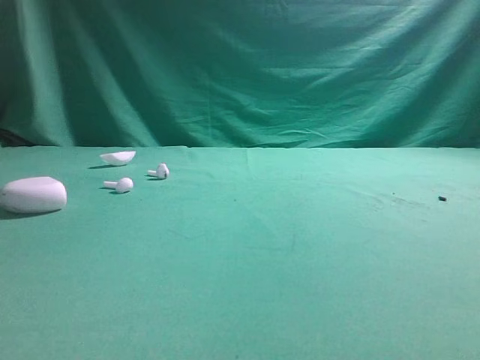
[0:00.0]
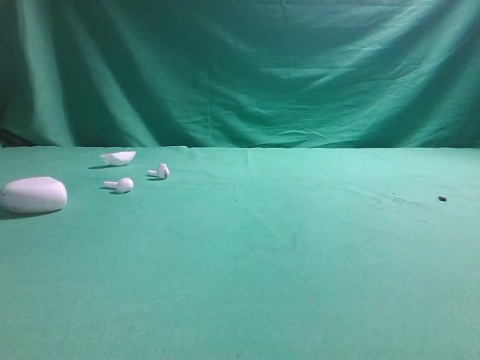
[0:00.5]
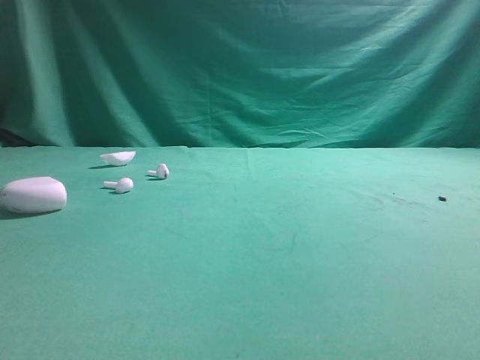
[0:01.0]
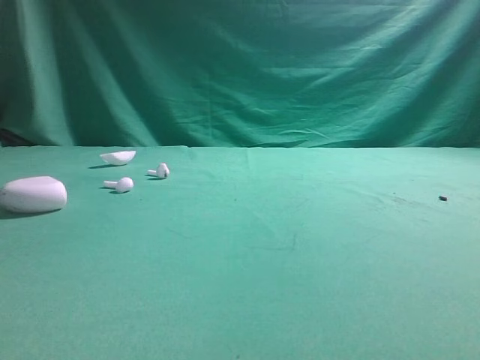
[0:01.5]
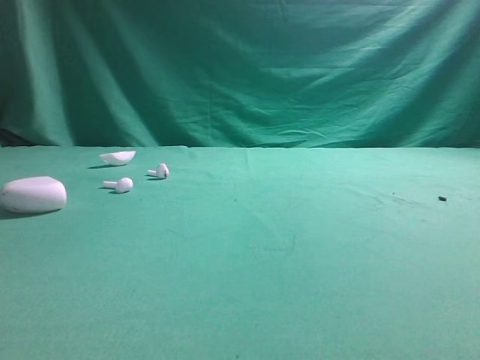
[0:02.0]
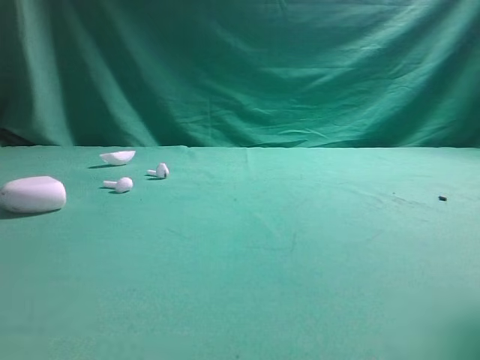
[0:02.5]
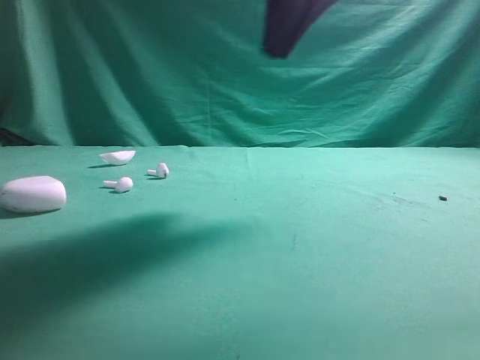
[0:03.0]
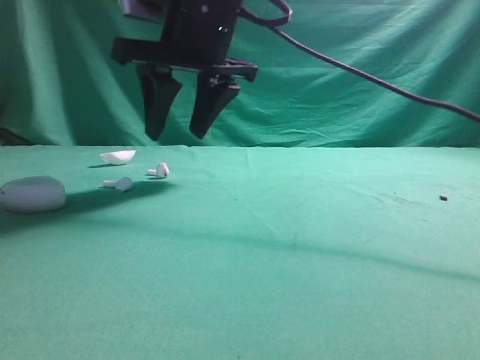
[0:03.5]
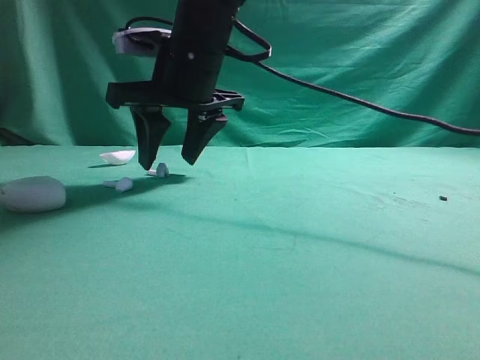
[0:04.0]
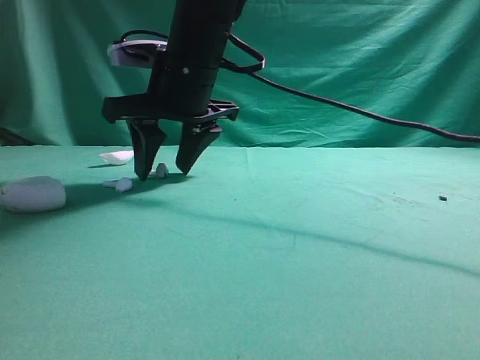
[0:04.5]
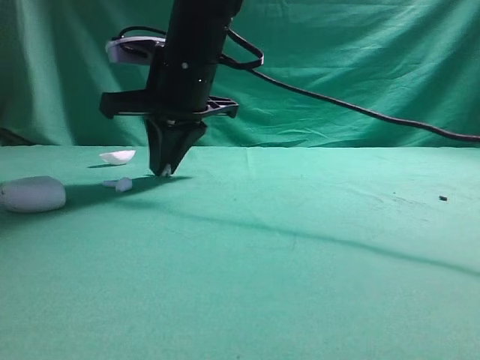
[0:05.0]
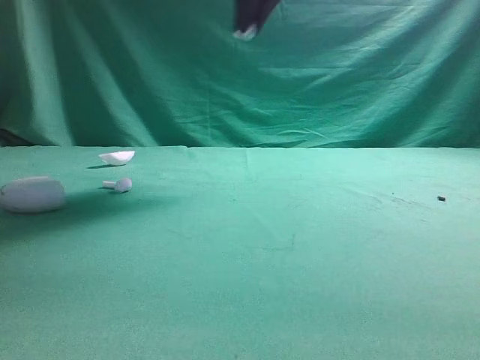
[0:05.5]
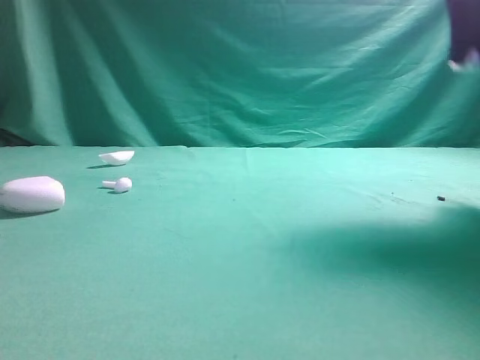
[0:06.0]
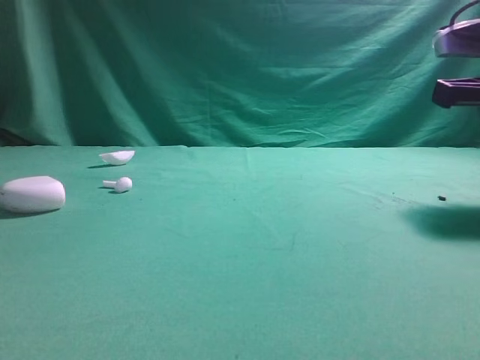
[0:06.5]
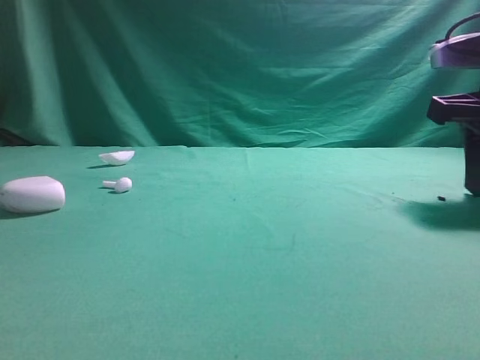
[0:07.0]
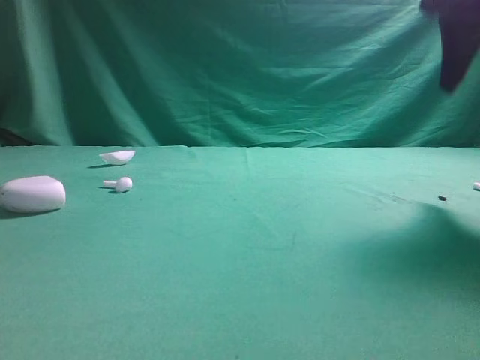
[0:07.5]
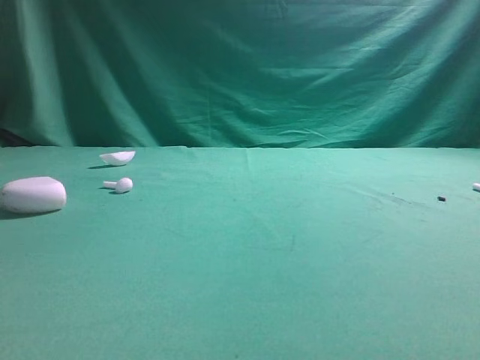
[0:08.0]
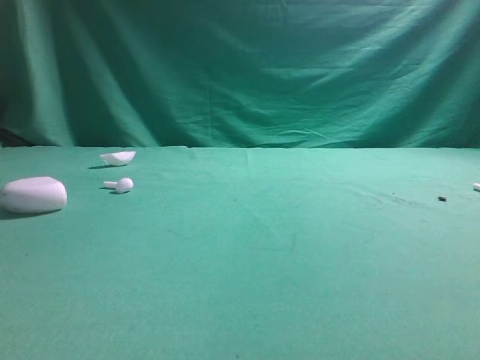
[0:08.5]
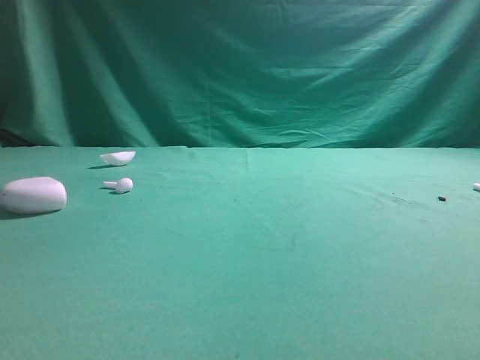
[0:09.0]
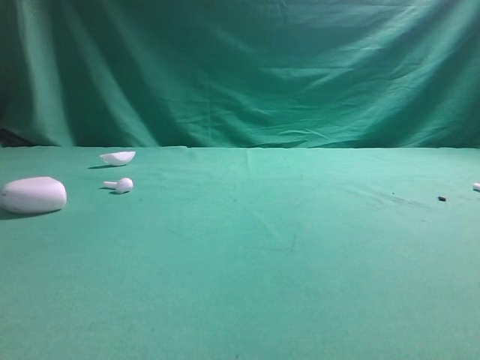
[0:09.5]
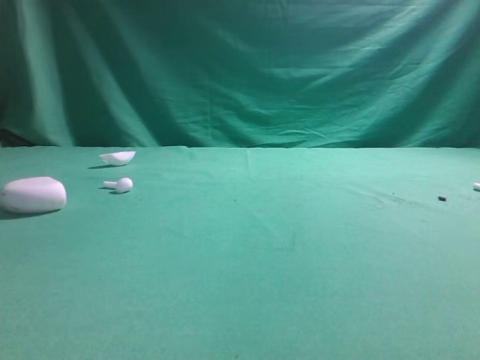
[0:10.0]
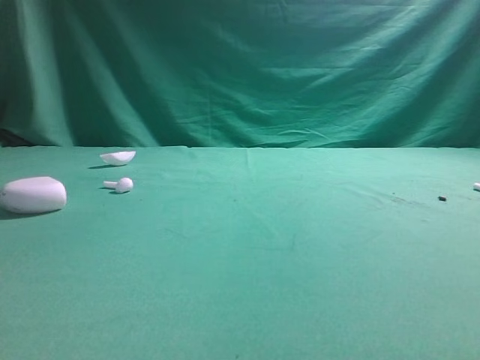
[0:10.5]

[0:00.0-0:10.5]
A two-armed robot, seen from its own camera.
Step, 0:00.0 to 0:05.0: Grasp the Bluetooth earbud.
Step, 0:05.5 to 0:07.0: Place bluetooth earbud on the right side of the table.

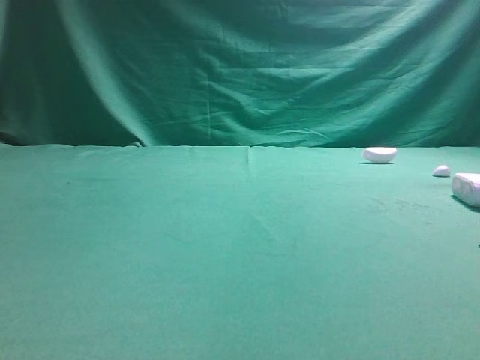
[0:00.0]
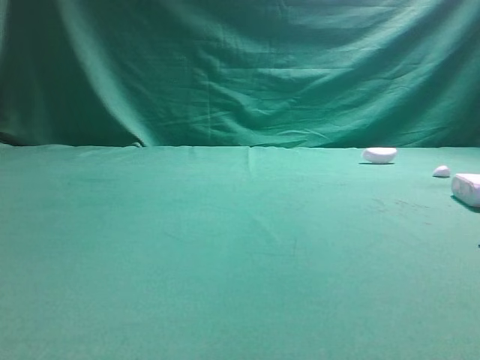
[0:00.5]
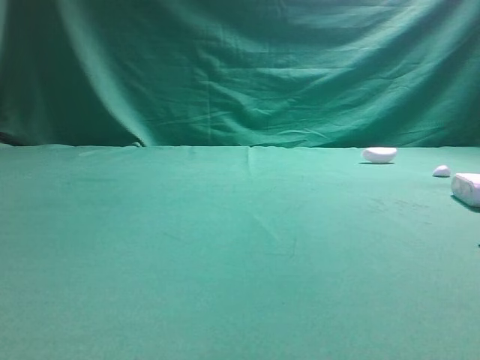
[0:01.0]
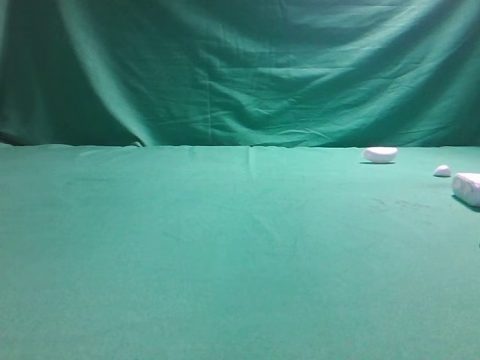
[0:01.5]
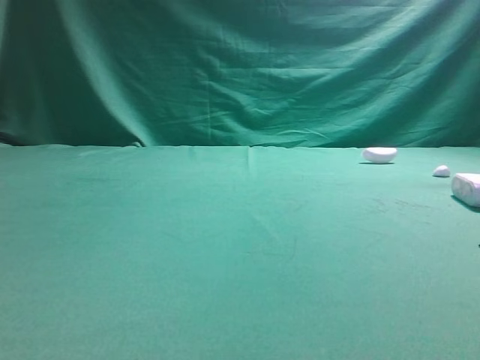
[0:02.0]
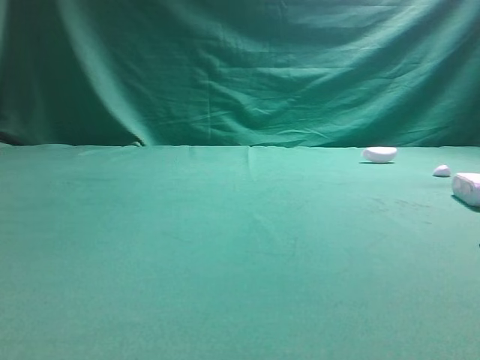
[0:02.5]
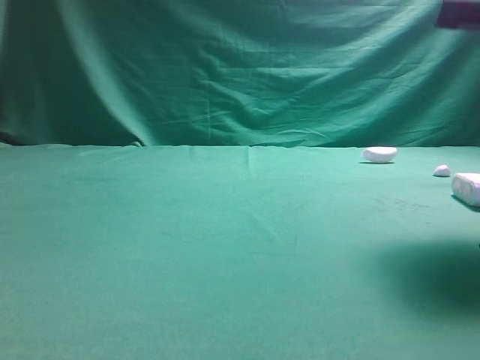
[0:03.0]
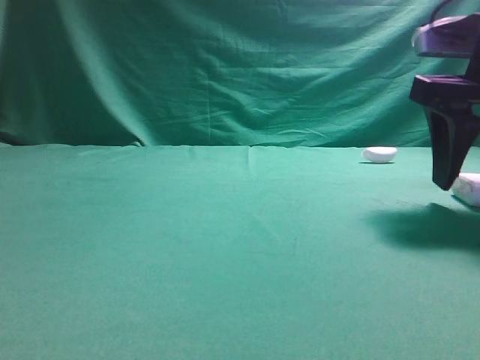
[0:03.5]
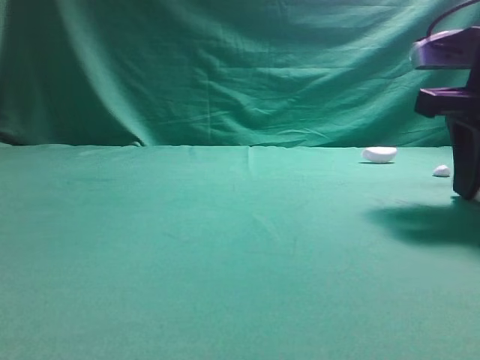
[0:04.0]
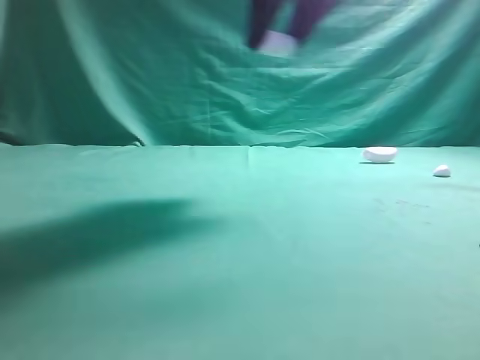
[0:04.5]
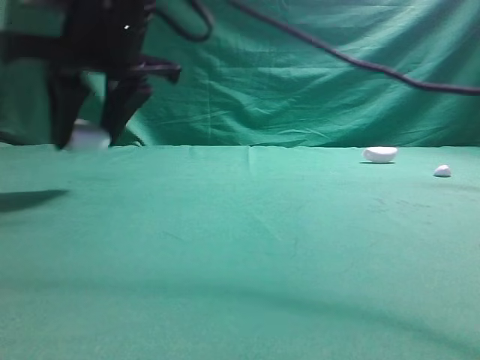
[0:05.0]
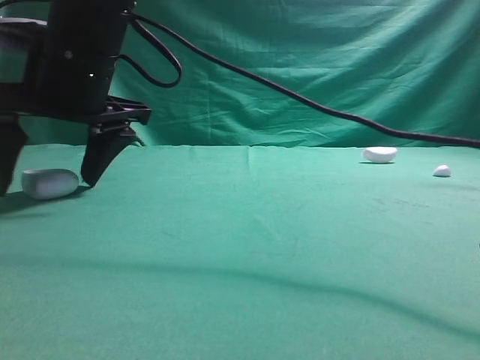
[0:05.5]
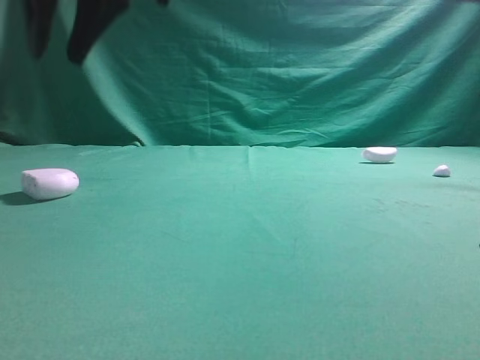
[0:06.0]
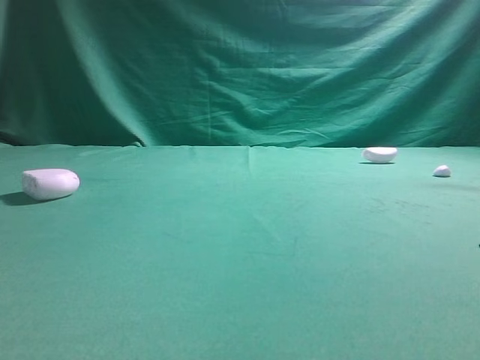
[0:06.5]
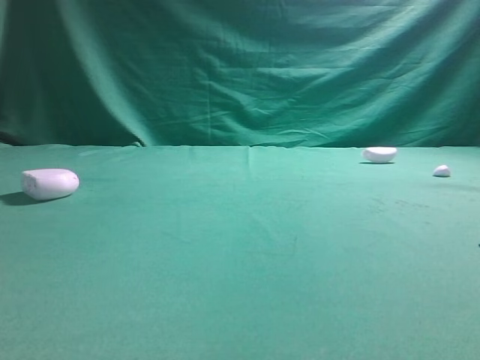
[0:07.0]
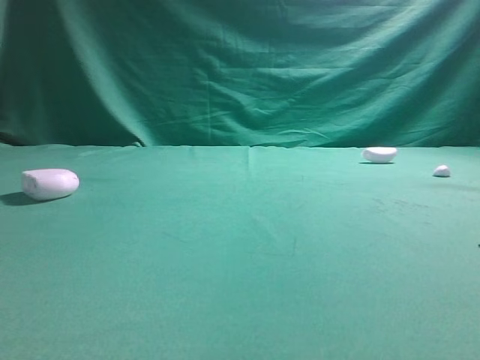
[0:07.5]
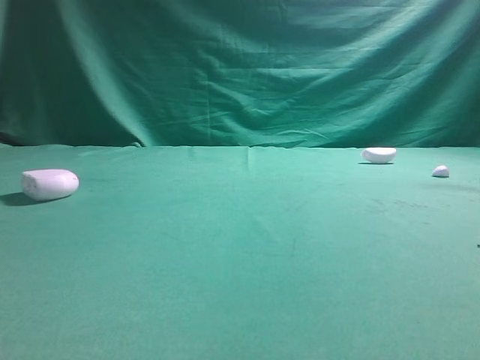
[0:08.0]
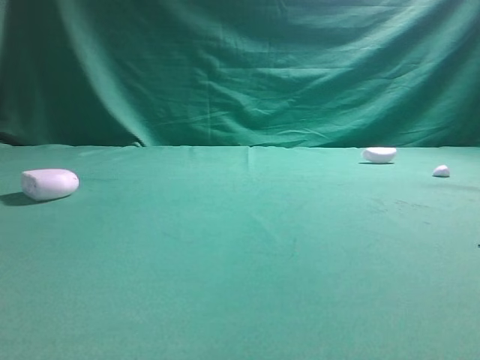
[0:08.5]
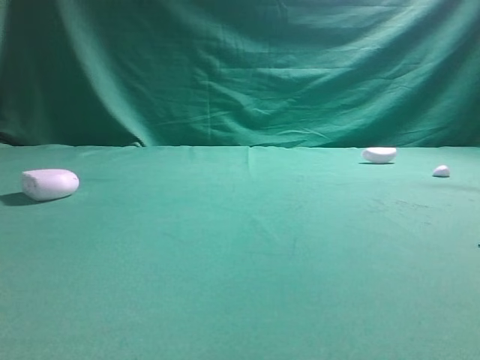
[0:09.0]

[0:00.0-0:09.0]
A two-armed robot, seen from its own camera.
Step, 0:00.0 to 0:04.0: Grasp the Bluetooth earphone case.
Step, 0:04.5 to 0:05.5: Place bluetooth earphone case on the left side of the table.
